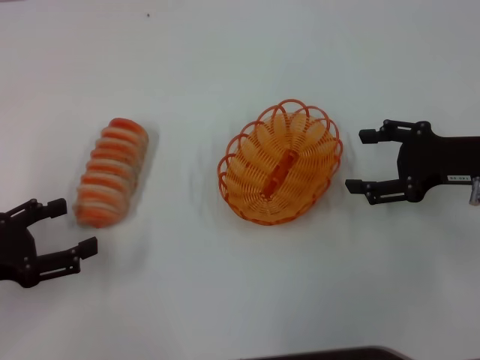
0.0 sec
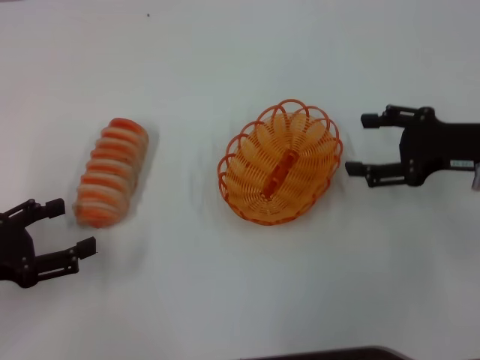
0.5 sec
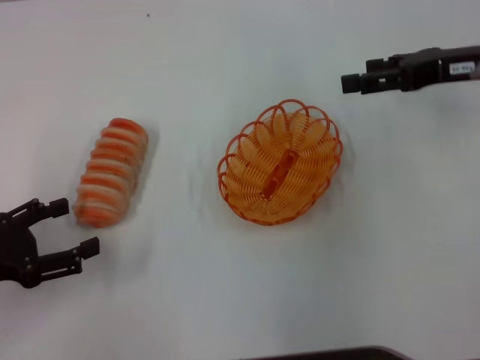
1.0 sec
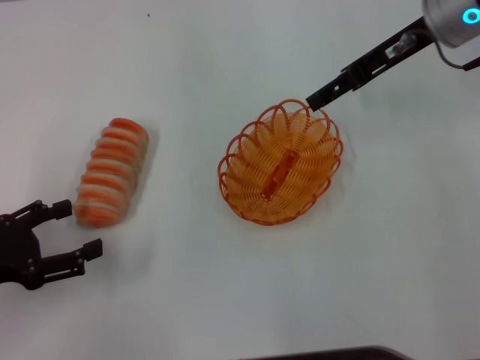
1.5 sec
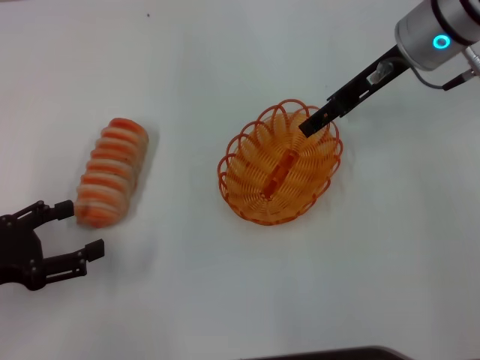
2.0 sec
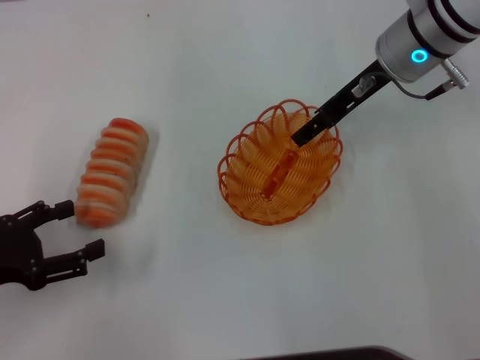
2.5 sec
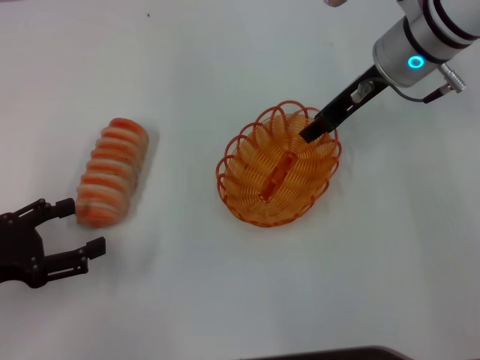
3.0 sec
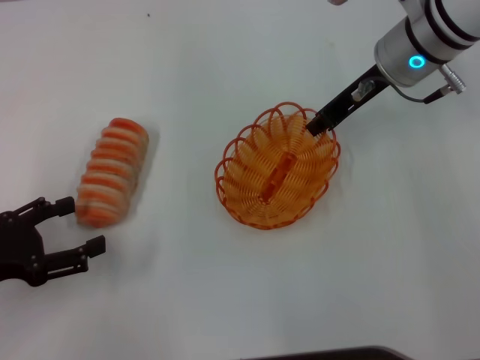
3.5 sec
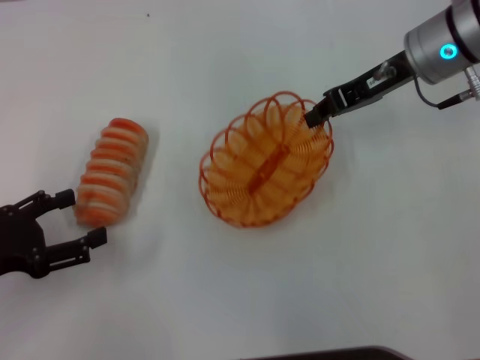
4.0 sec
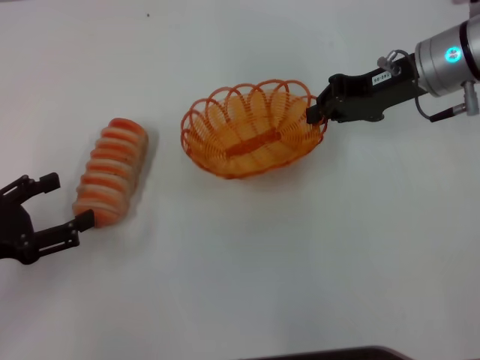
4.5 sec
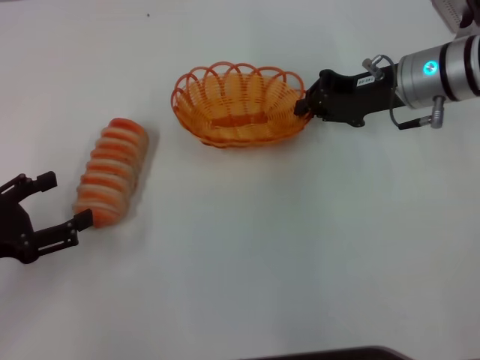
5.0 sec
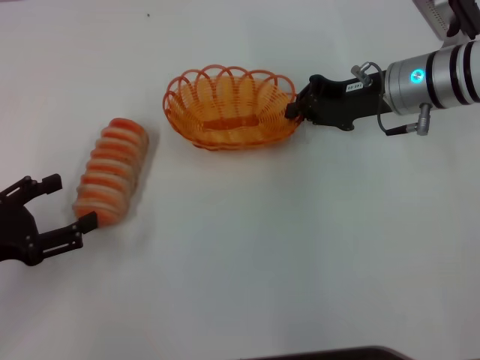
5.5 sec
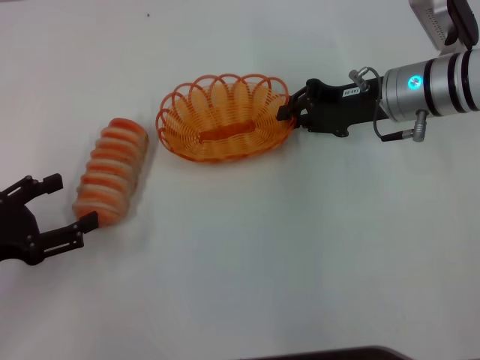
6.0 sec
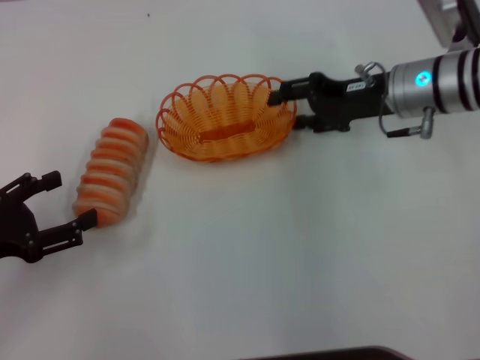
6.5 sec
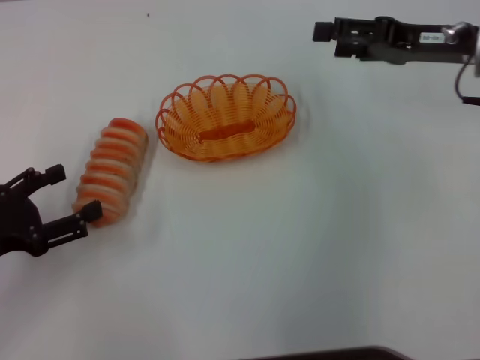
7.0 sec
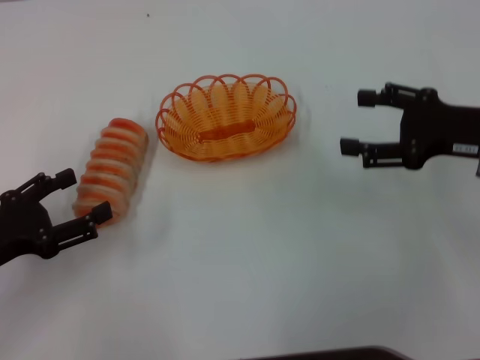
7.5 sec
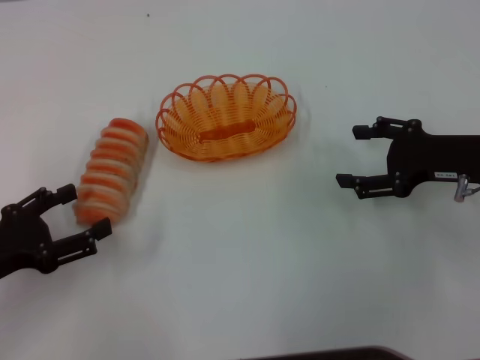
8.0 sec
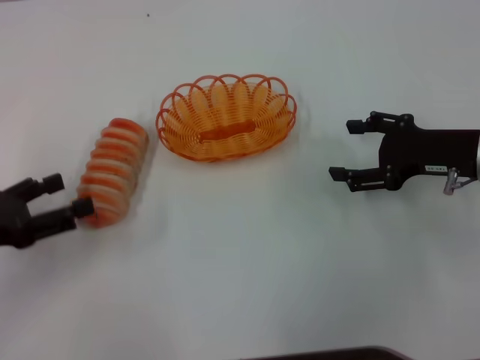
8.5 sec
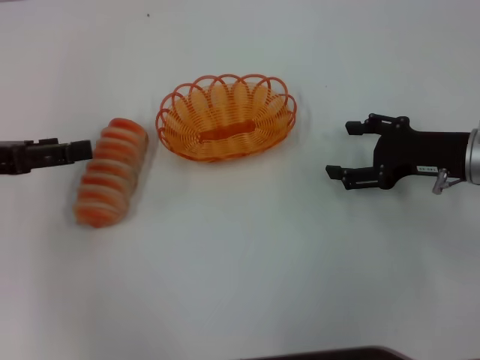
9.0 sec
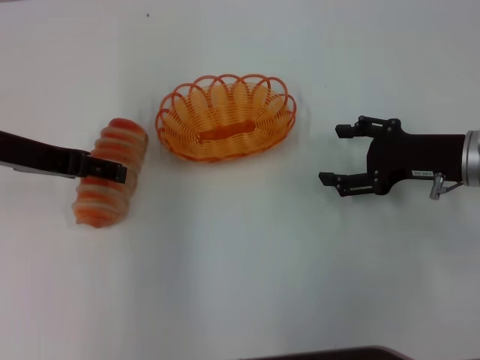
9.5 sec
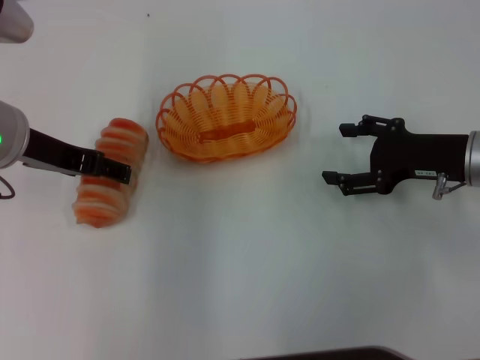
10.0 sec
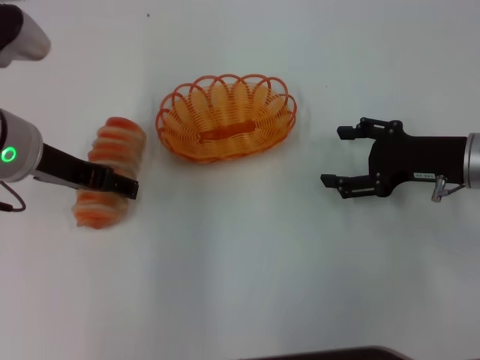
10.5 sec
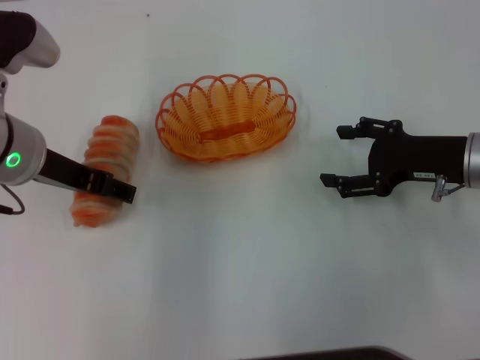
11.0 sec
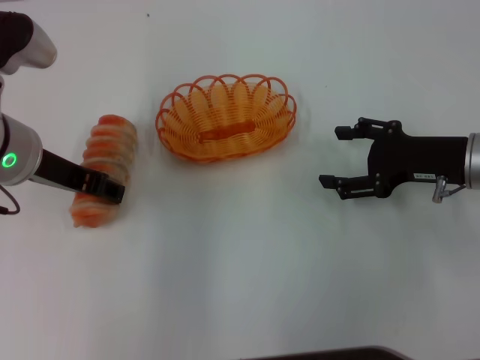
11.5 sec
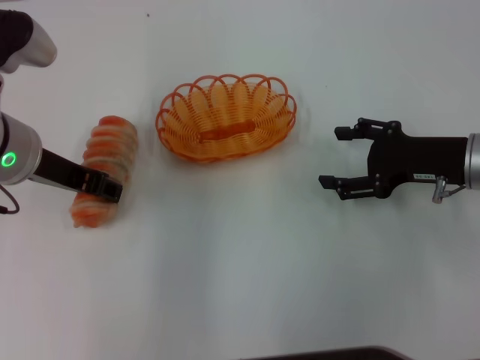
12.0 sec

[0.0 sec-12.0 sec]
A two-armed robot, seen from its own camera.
Step, 0.0 sec to 3.5 sec: Pick up the basket with the right gripper.
Step, 4.0 sec to 6.0 sec: Place the basket in the center of view with the right gripper.
0.0 sec to 2.0 sec: The right gripper is displaced forward, to the left and upward by some 20 cm.
2.0 sec to 4.0 sec: The right gripper closes up.
4.0 sec to 6.0 sec: The right gripper shifts approximately 5 cm downward.
6.0 sec to 8.0 sec: The right gripper goes approximately 10 cm backward and to the right, and opens its fingers.
8.0 sec to 10.0 sec: The left gripper travels forward, upward and to the right by about 20 cm.
10.0 sec to 12.0 sec: The left gripper closes its fingers.

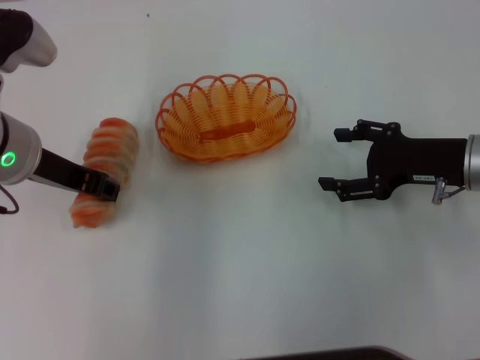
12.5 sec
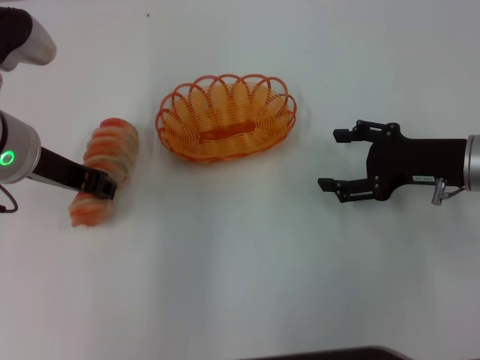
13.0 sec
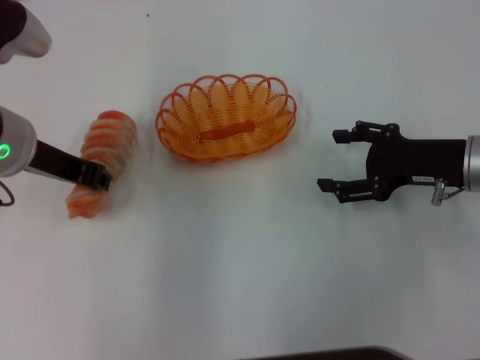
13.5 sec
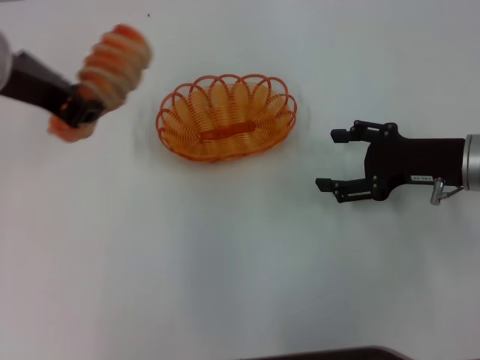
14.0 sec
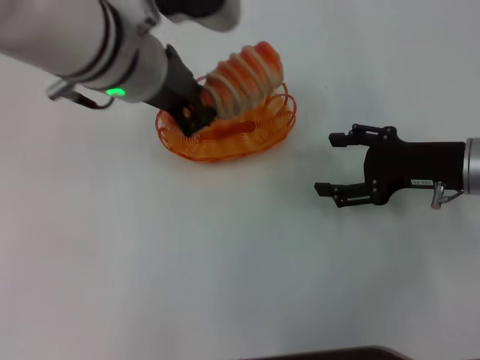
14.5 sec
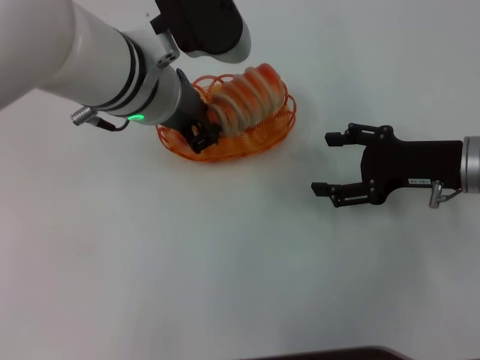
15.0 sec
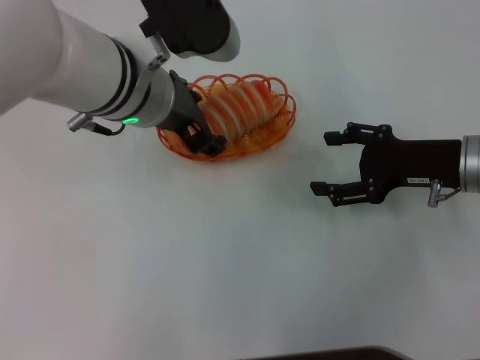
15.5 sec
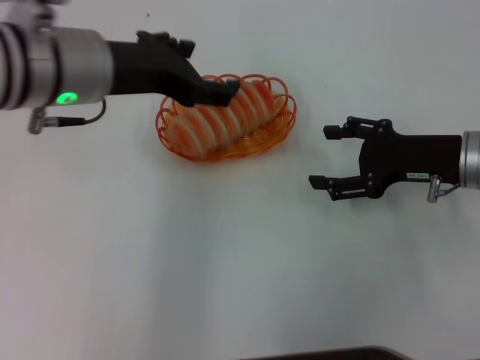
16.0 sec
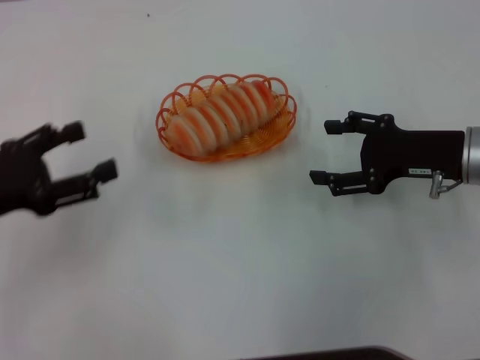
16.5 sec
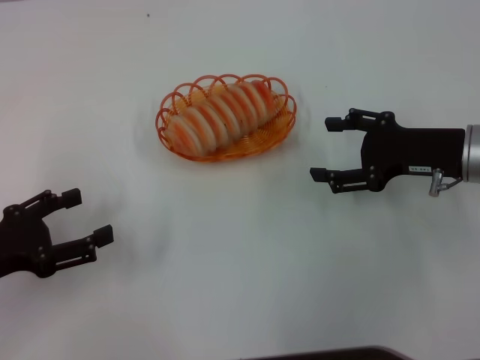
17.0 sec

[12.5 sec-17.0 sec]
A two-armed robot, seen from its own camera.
Step, 14.0 sec to 15.5 sec: Place the long bread into the basket with the left gripper.
12.5 sec to 14.5 sec: The left gripper heads to the right and upward, covering about 15 cm.
14.5 sec to 17.0 sec: The left gripper moves to the left, downward and backward, roughly 30 cm, and opens.
